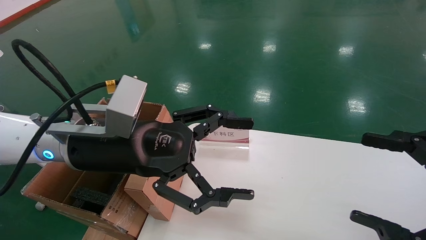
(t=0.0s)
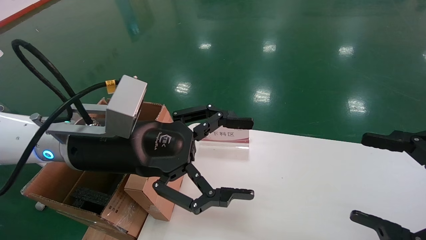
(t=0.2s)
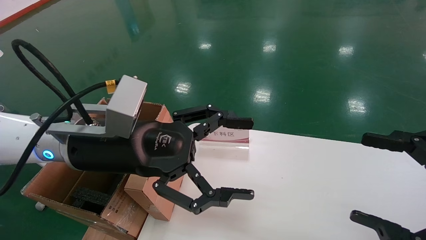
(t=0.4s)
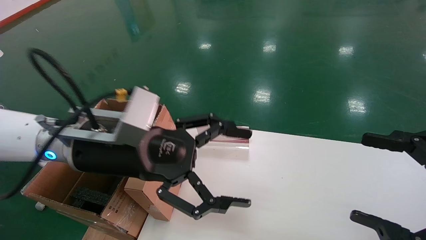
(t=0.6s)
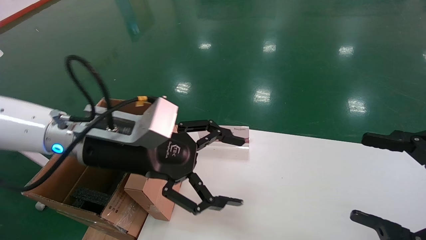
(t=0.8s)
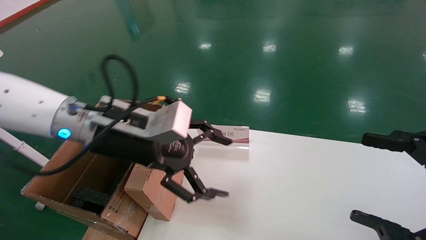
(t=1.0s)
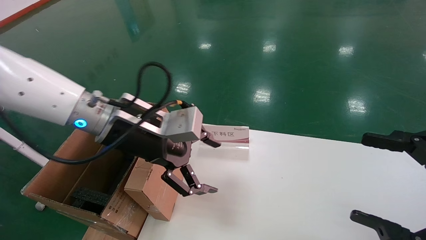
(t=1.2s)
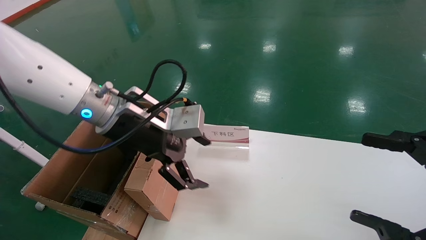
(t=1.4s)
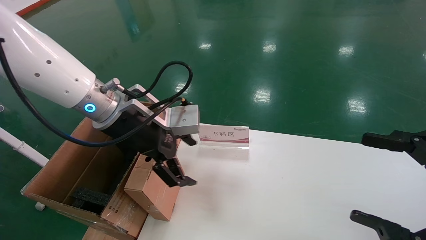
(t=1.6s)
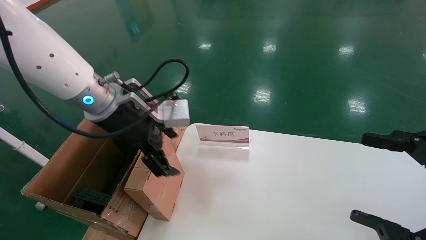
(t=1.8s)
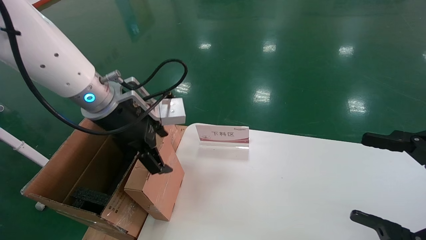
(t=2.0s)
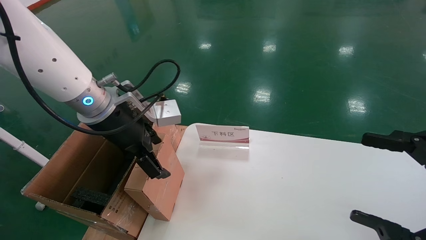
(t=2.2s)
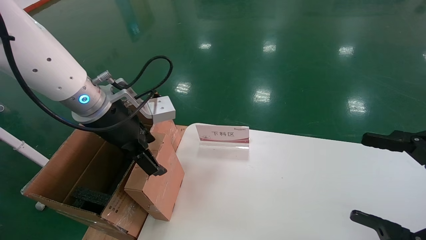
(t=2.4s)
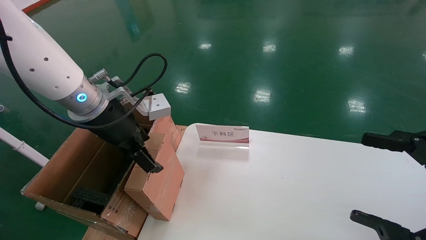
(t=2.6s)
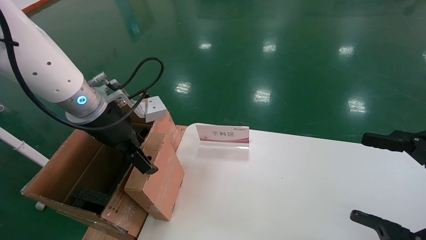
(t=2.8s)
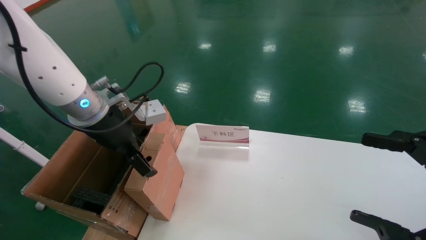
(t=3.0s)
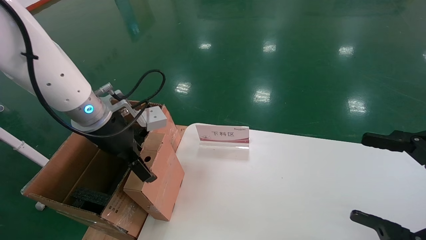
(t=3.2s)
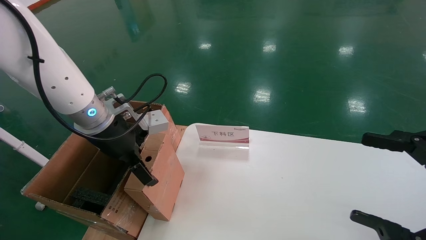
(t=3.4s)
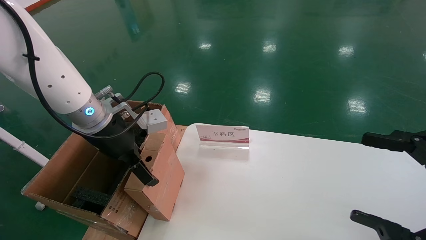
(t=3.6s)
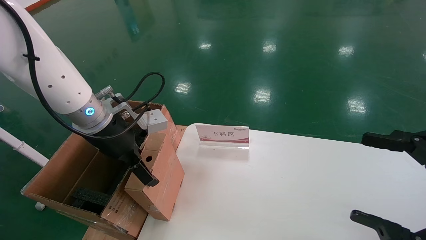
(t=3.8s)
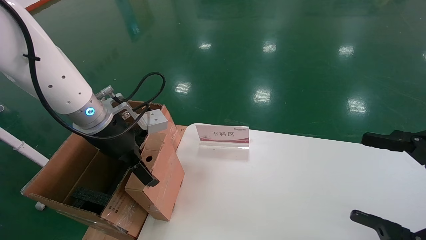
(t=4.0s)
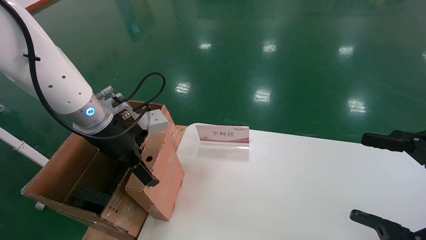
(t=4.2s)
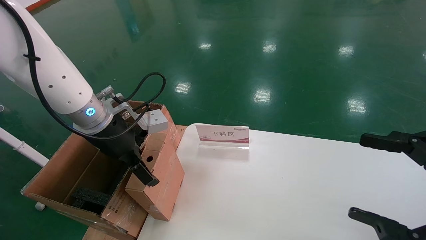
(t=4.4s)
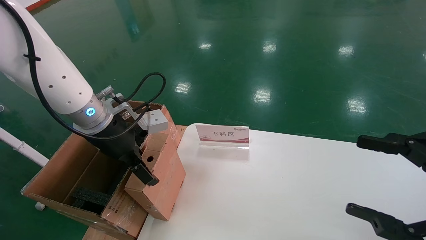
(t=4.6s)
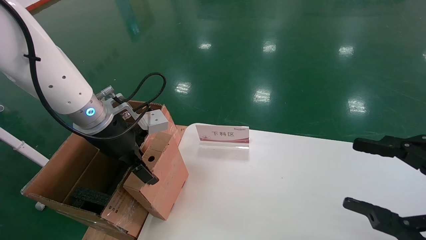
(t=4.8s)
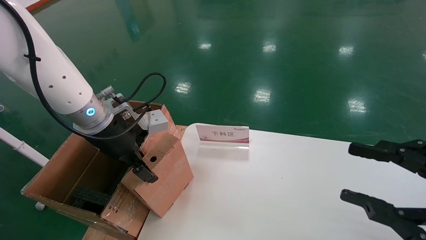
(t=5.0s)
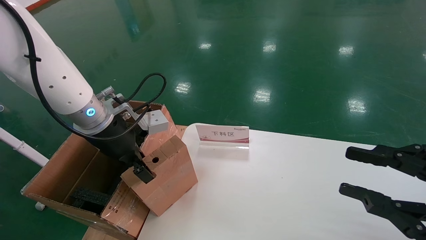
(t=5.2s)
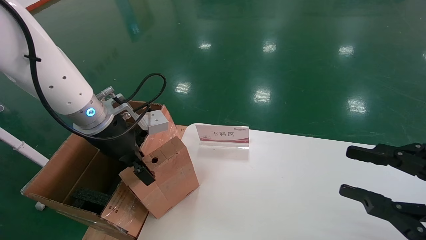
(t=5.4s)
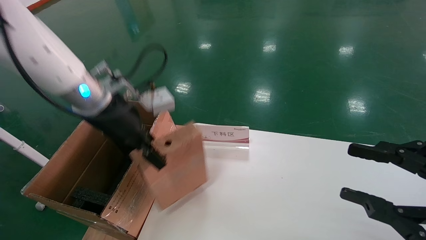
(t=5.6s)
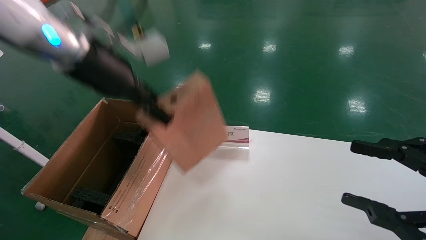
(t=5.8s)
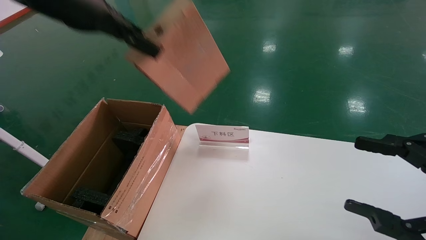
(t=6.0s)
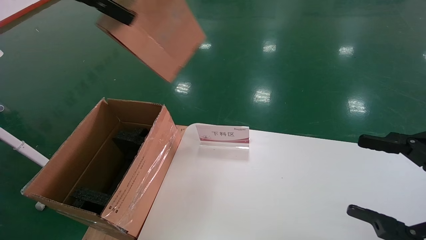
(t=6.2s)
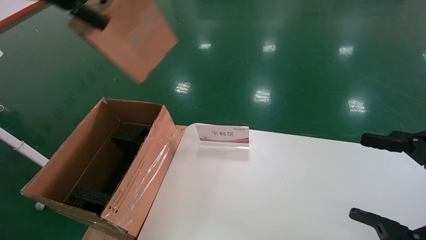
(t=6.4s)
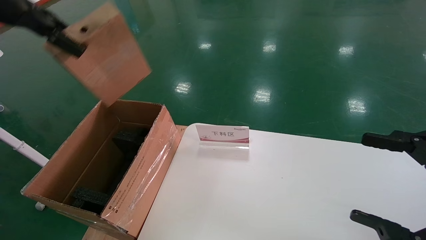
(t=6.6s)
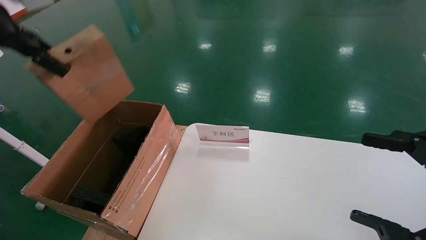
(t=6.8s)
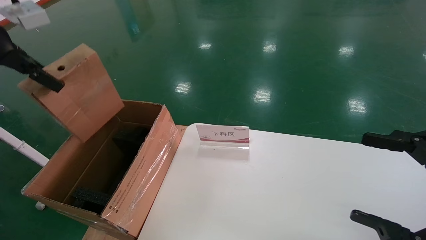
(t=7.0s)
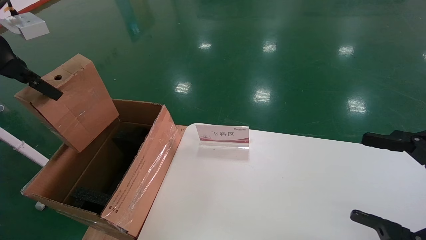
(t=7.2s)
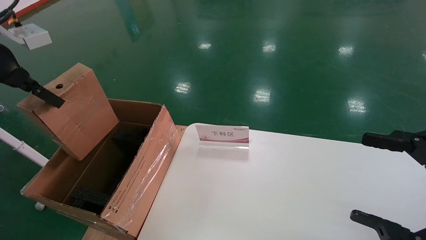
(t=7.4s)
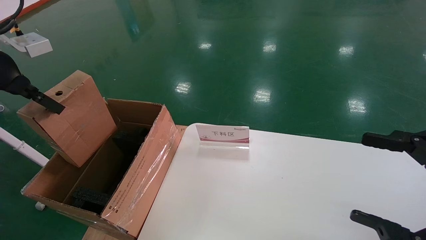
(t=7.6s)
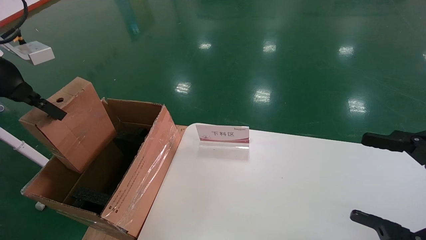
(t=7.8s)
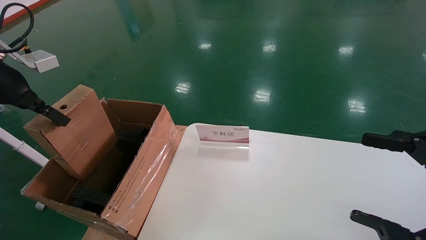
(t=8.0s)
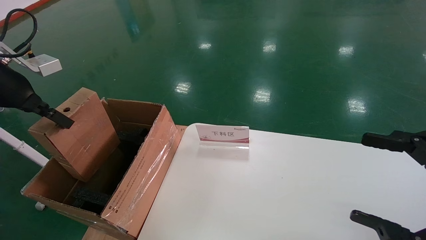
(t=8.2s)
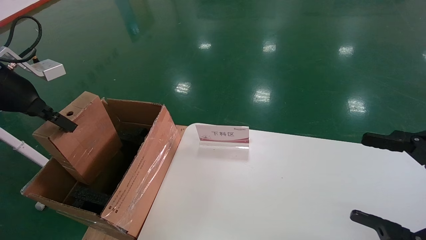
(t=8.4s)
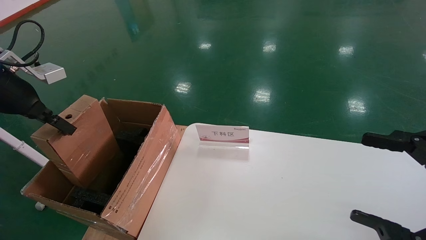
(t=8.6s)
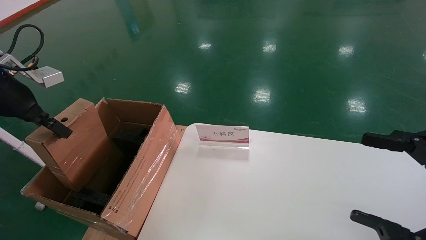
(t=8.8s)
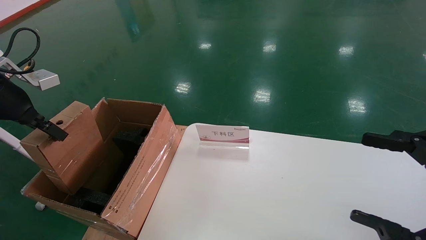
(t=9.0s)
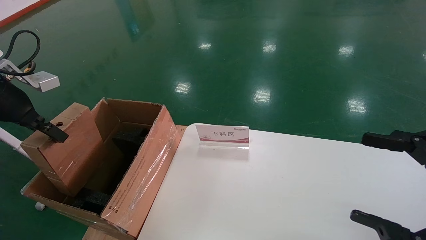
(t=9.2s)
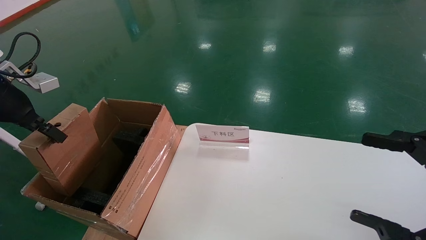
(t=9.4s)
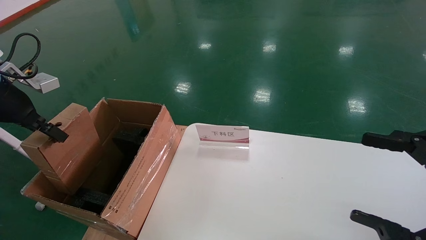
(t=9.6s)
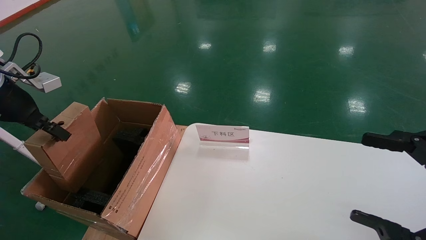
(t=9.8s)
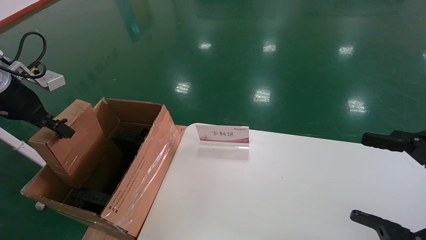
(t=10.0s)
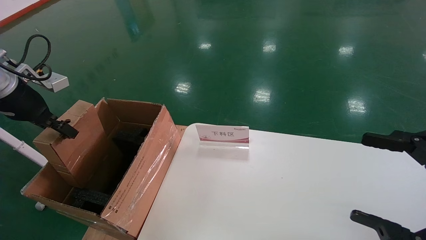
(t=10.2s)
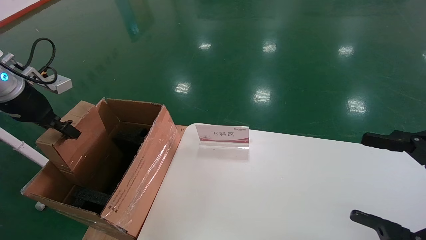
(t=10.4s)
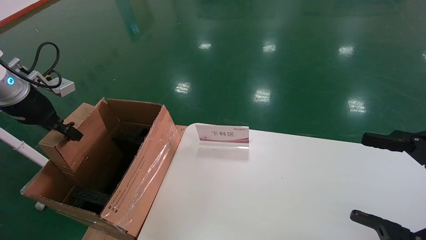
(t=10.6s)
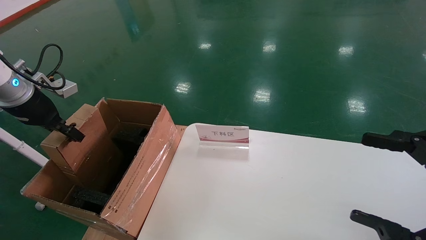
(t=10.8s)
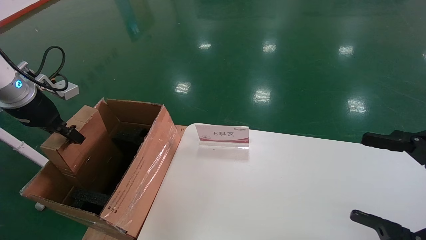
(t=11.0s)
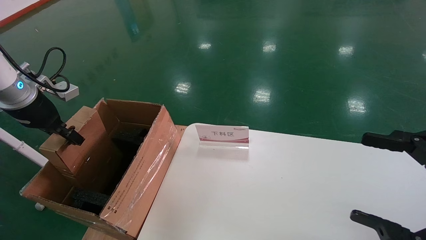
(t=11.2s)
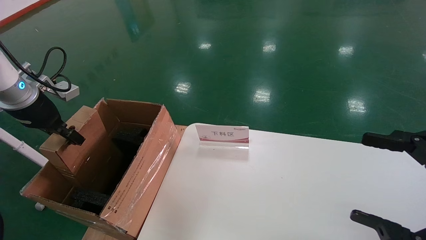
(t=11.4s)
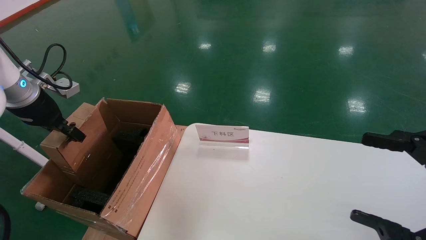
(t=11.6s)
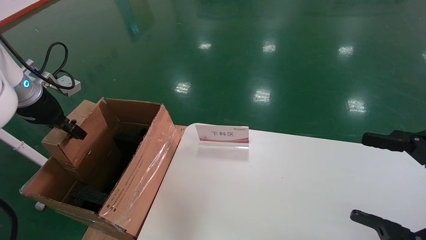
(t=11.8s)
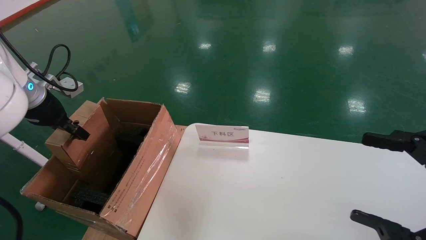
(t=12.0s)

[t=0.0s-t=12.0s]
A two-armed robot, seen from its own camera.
Task of the whole recording: pick up the small cardboard box and load it into the large cardboard box.
Step, t=0.8s to t=5.4s: Pick up the mouse and power cord box.
t=0.0s to t=1.6s: The left gripper goes approximately 5 cm forward.
t=1.6s to t=3.0s: The left gripper is displaced to the left by approximately 5 cm.
t=3.0s to t=4.4s: The grippers stay close to where they were, moving slightly.
t=4.4s to t=6.0s: The left gripper heads upward, covering some 20 cm, and closes its fingers. The right gripper closes its fingers.
t=6.0s to t=7.6s: The right gripper opens; the left gripper goes roughly 20 cm to the left and downward.
t=7.6s to t=9.0s: The left gripper goes some 5 cm downward.
t=9.0s to t=10.4s: The grippers stay close to where they were, moving slightly.
t=10.4s to t=12.0s: The grippers move only a little.

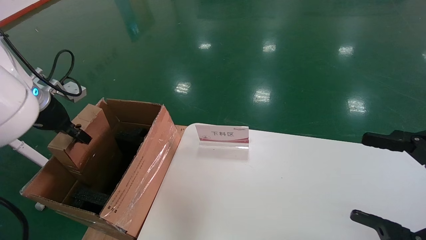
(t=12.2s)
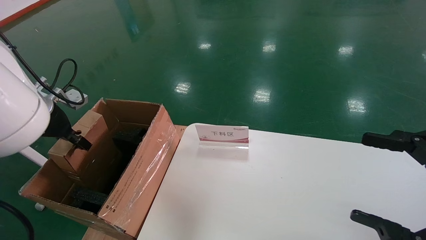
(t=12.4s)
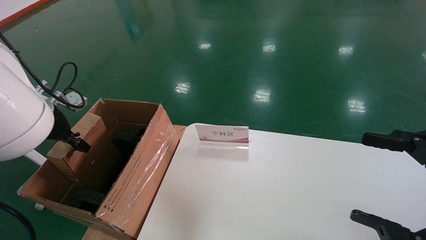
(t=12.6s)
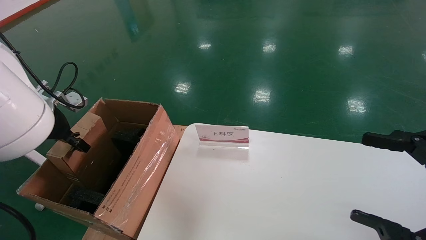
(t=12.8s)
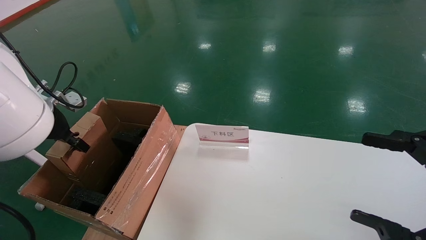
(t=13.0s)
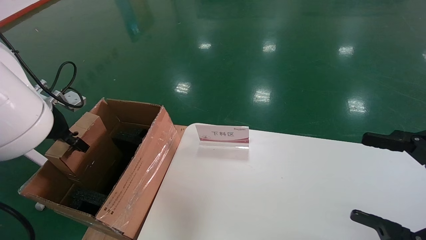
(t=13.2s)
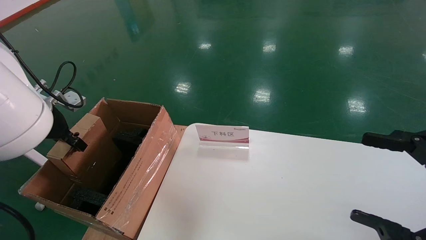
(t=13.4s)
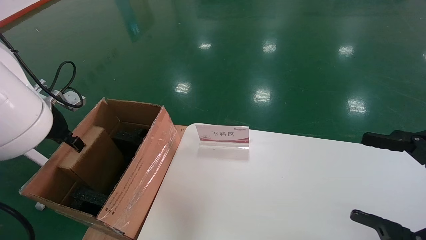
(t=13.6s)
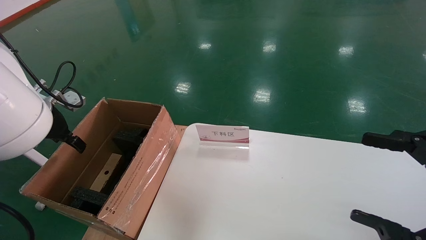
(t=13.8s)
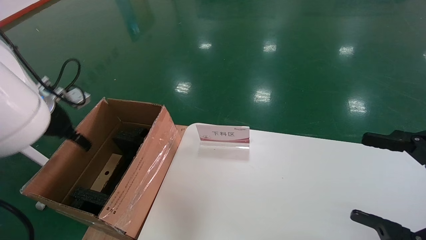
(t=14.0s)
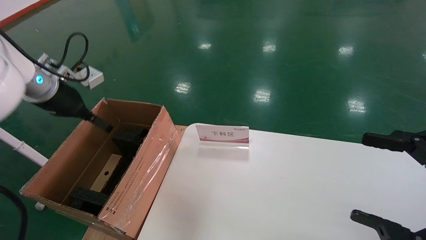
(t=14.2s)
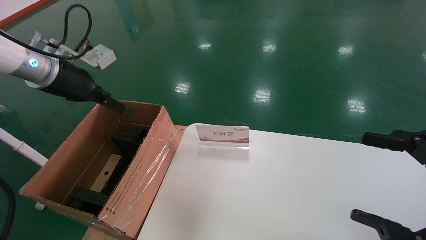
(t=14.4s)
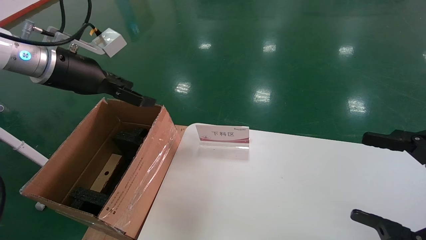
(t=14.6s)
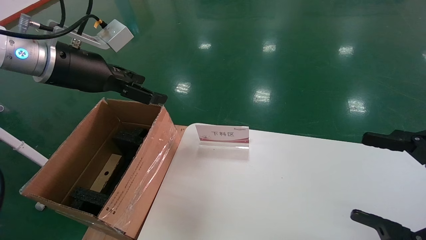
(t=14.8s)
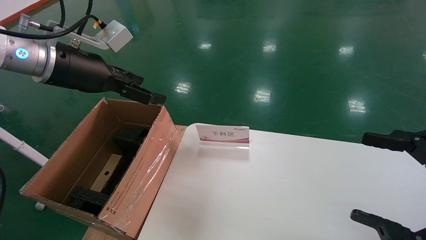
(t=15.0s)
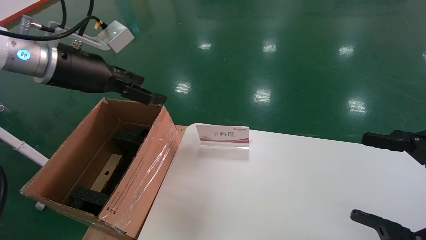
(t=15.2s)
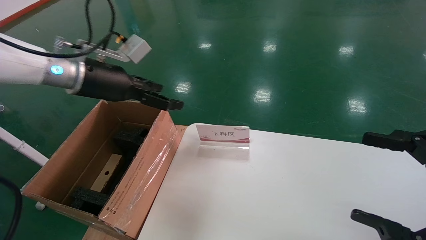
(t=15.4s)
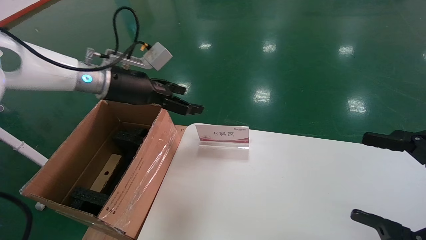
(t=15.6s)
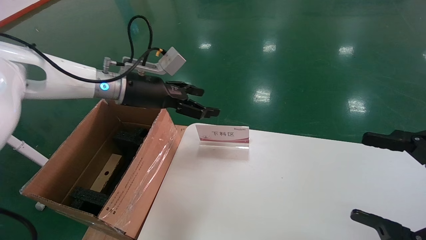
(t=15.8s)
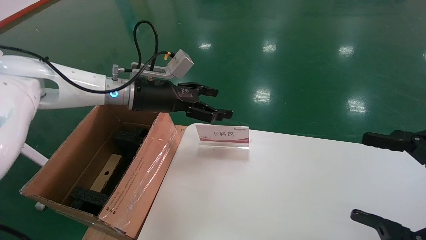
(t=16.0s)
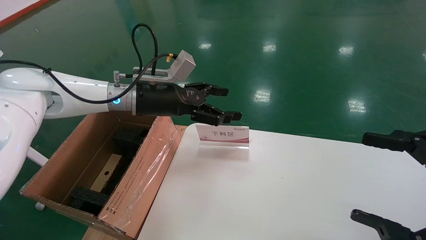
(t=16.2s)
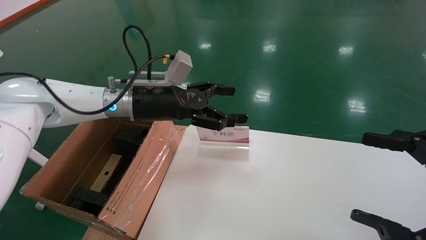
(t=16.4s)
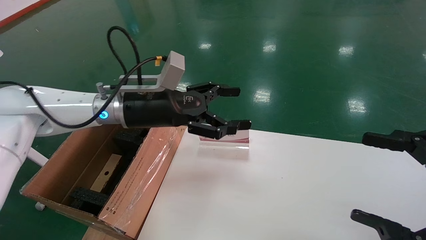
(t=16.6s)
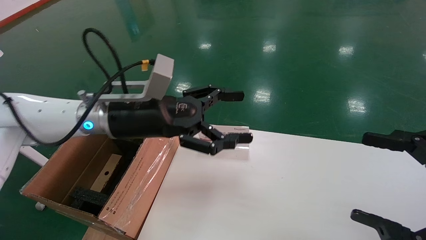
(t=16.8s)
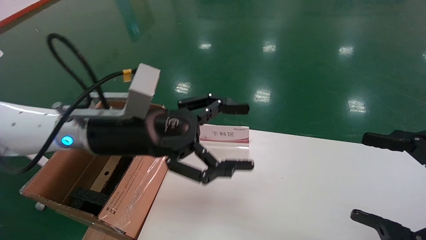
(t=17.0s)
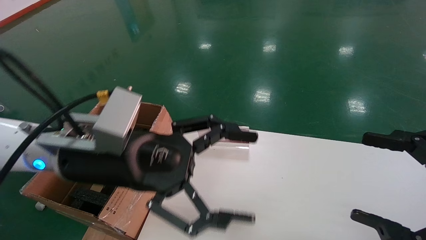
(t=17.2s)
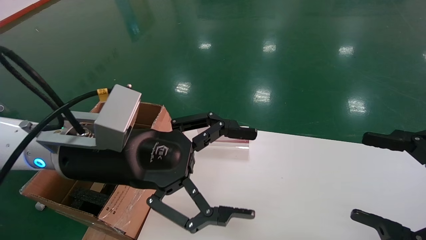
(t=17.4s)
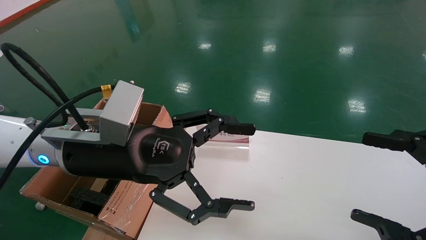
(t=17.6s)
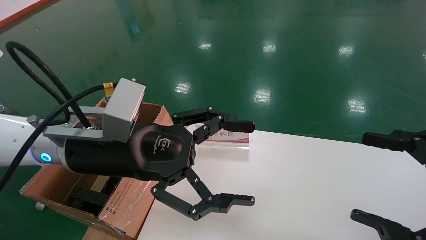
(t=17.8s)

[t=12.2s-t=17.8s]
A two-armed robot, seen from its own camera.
Task of the whole recording: pick up the small cardboard box and load it into the large cardboard box.
t=12.2s to t=13.6s: The grippers make only small movements.
t=13.6s to t=15.0s: The left gripper goes approximately 15 cm to the right and upward, and opens.
t=15.0s to t=16.4s: The left gripper travels downward, to the right and forward by some 15 cm.
t=16.4s to t=17.8s: The left gripper is displaced backward by approximately 15 cm.
